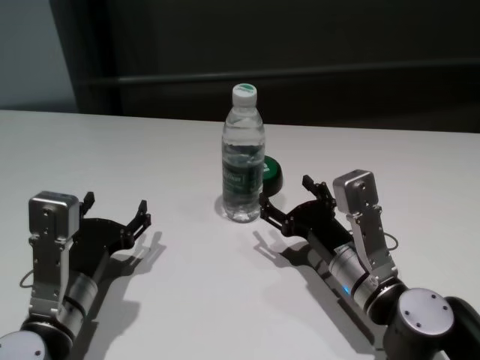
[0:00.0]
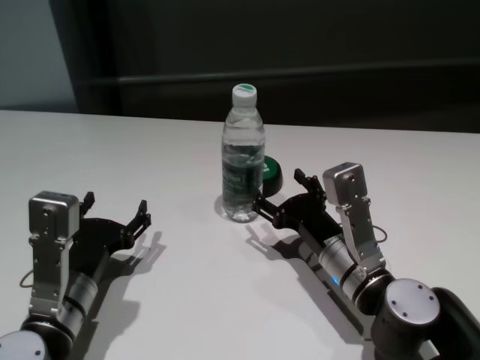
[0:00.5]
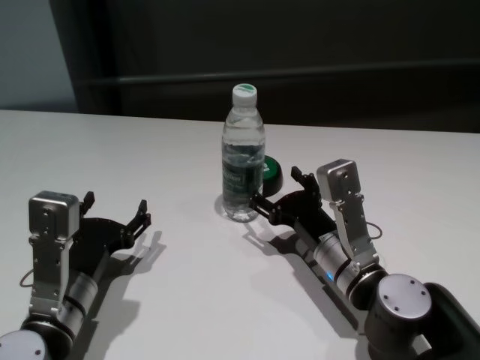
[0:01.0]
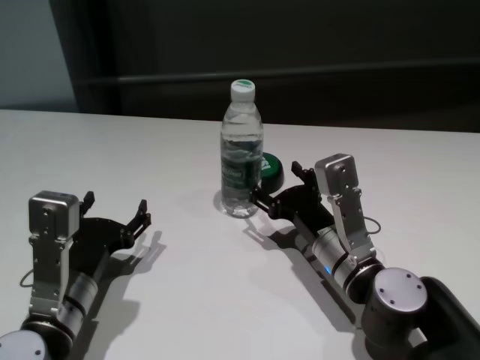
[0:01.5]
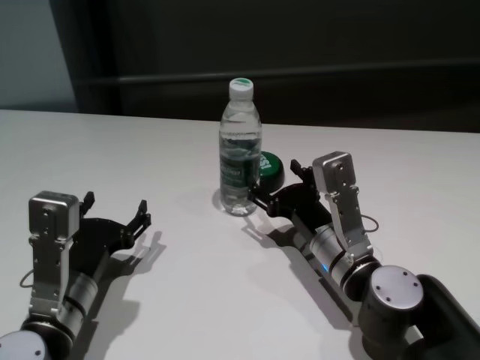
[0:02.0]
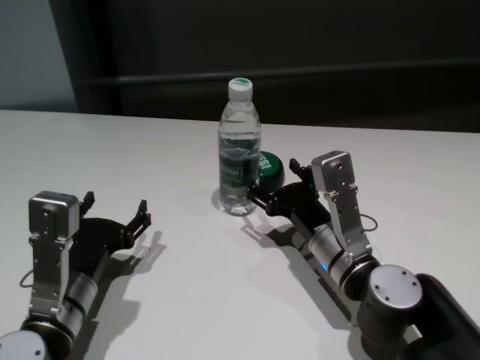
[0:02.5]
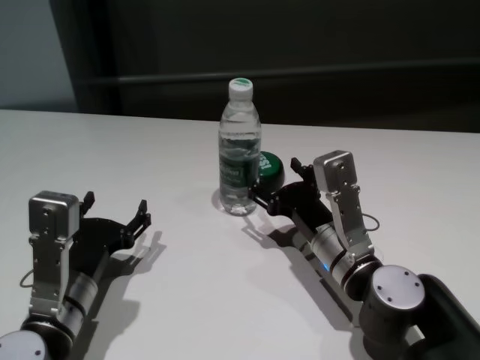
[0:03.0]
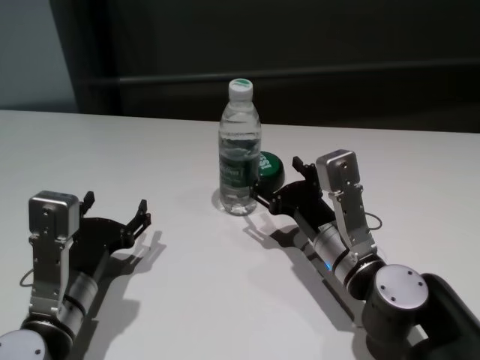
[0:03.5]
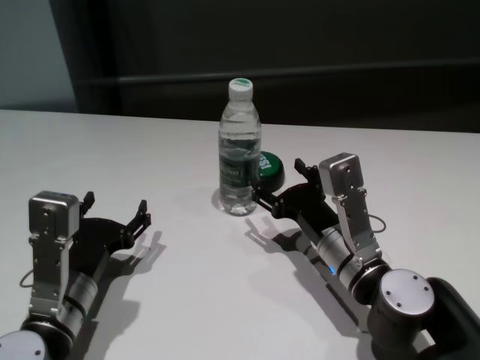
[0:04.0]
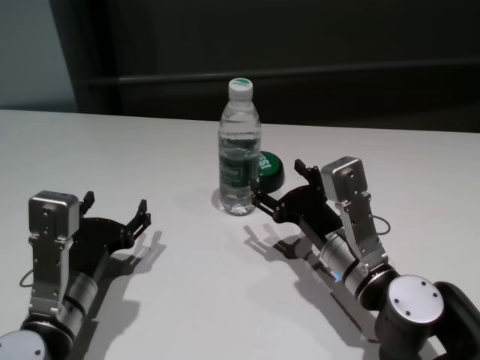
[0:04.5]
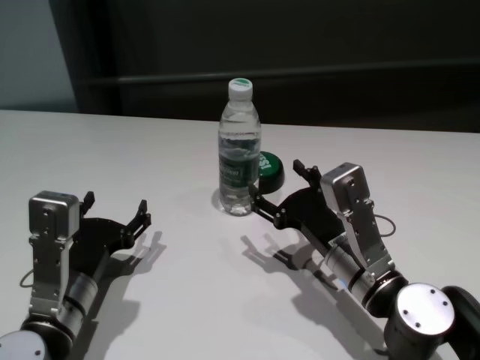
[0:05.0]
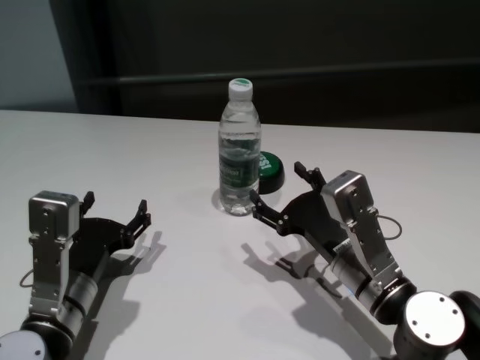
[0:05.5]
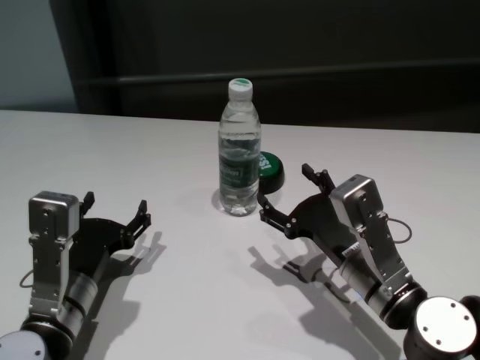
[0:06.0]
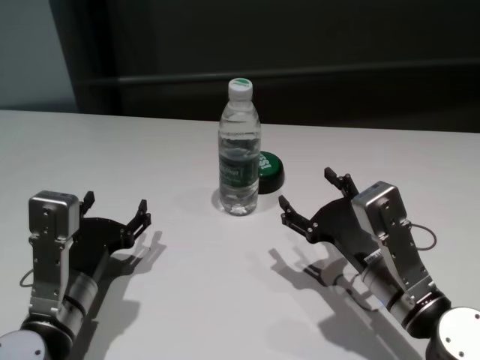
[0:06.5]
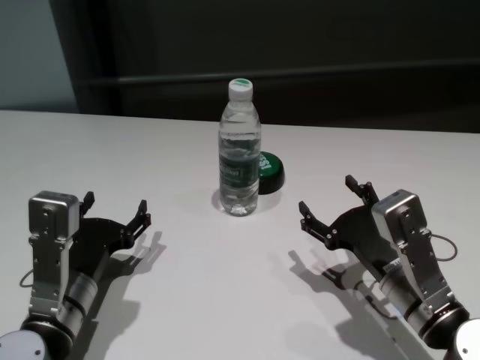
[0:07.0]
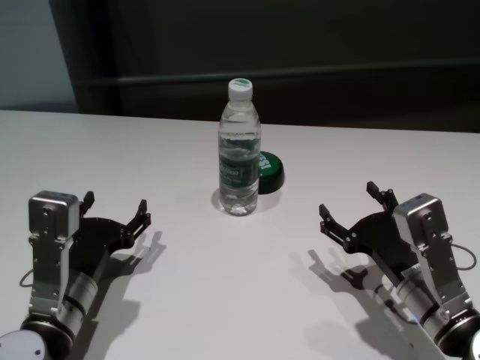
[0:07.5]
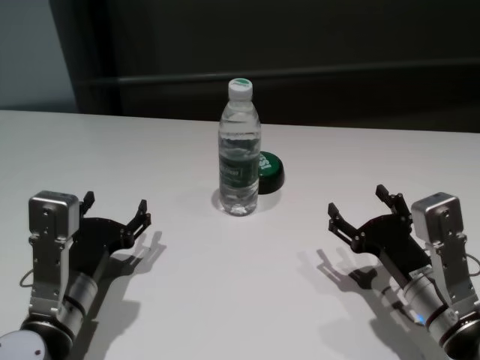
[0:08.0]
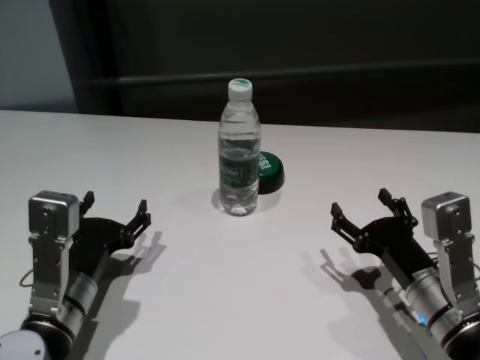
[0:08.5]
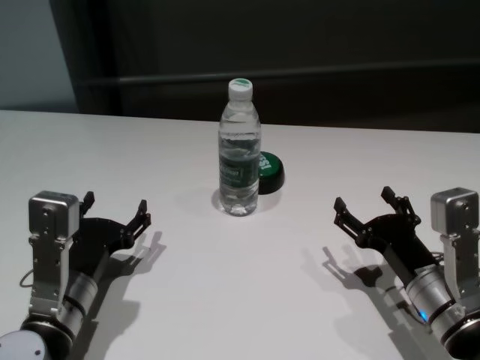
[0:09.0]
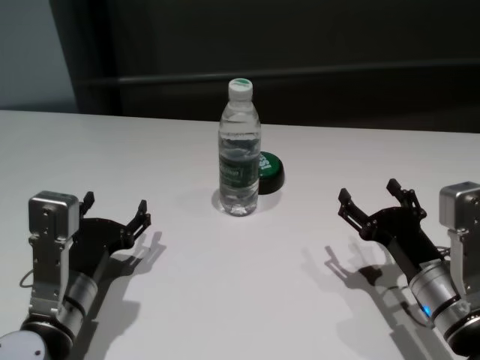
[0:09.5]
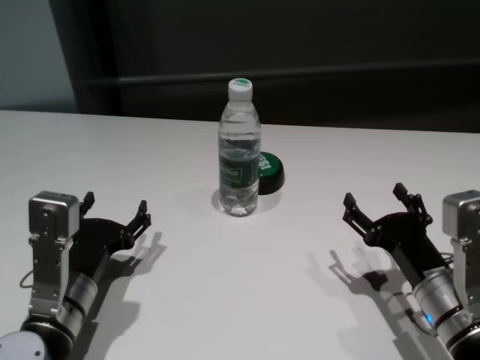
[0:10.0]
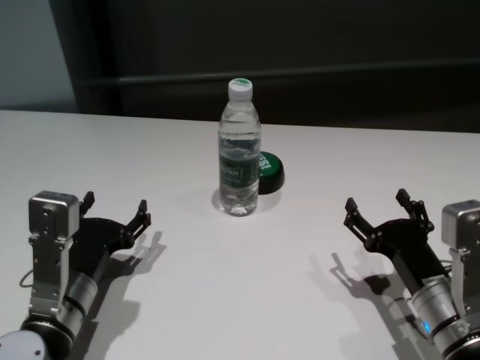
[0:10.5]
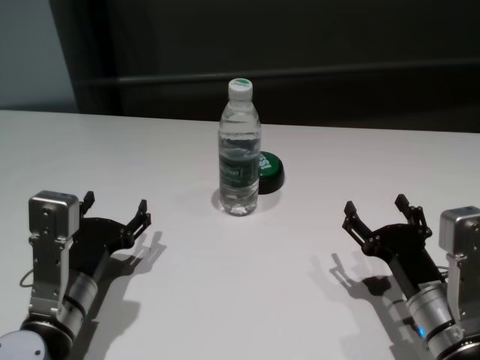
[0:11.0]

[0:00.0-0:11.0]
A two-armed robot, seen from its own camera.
Task of the whole recording: return to a safe position after touching an obstacle with your arm on the white table.
Step, 0:00.0 to 0:04.5: Touch the bottle with right gripper.

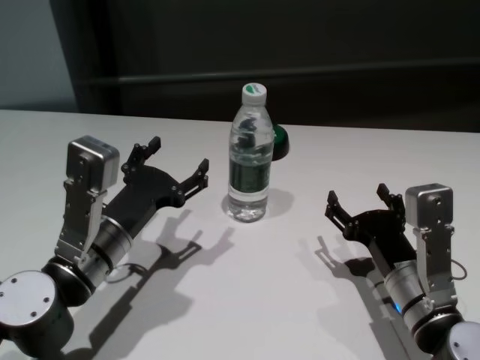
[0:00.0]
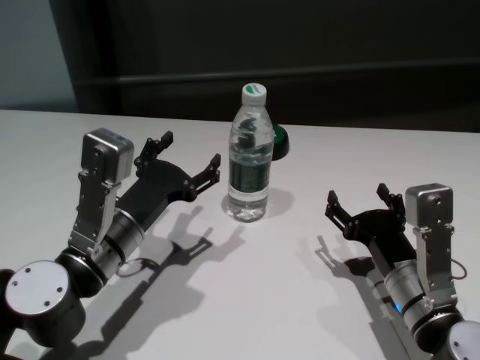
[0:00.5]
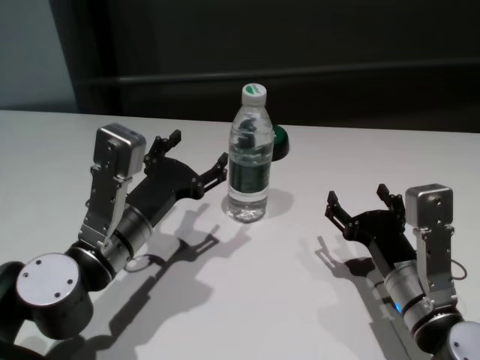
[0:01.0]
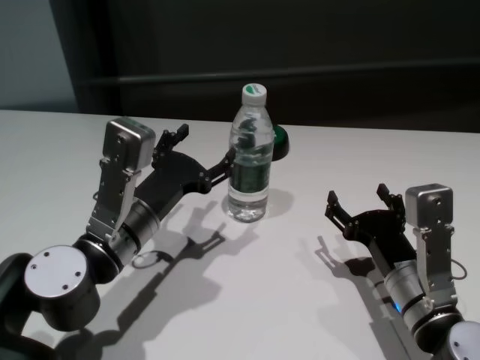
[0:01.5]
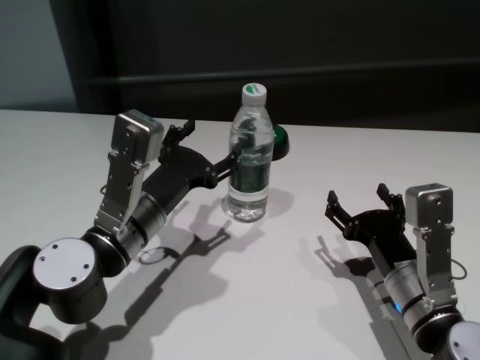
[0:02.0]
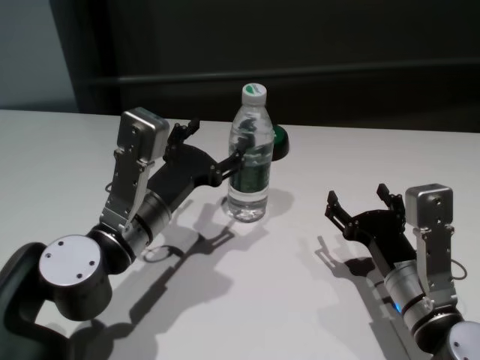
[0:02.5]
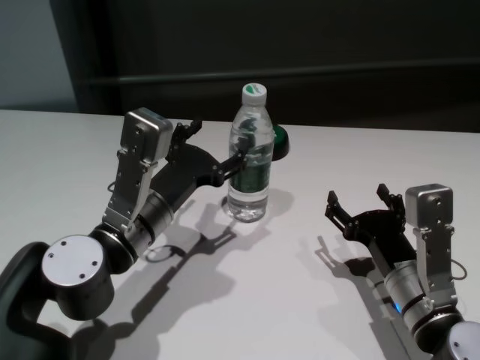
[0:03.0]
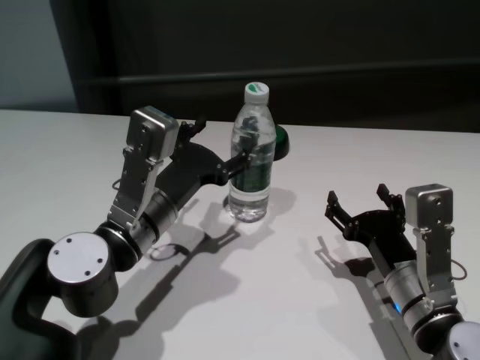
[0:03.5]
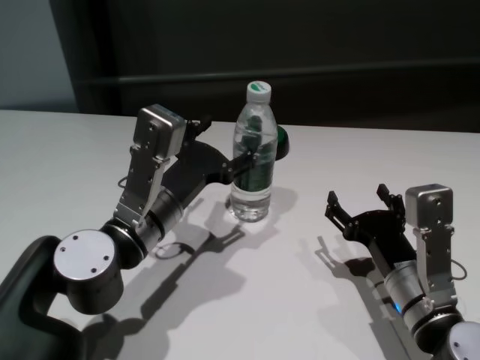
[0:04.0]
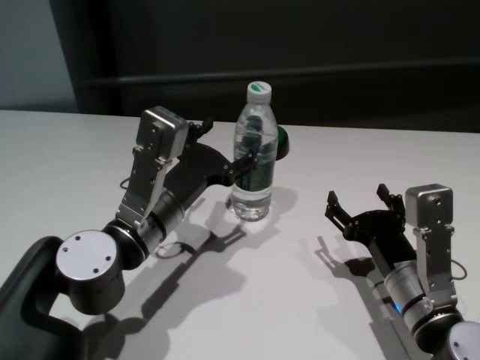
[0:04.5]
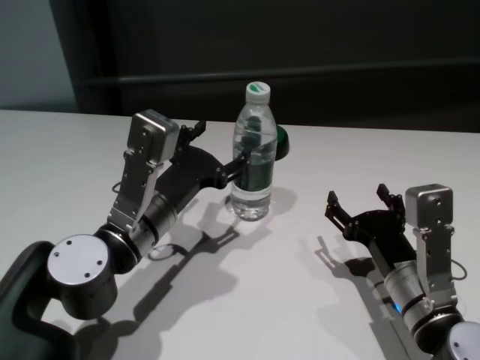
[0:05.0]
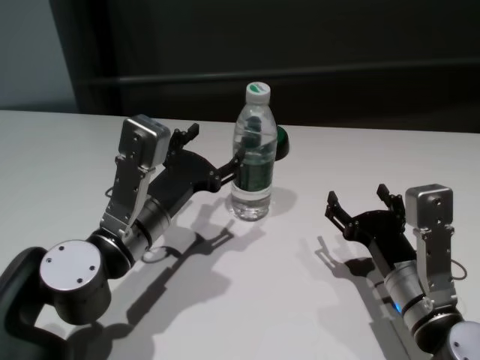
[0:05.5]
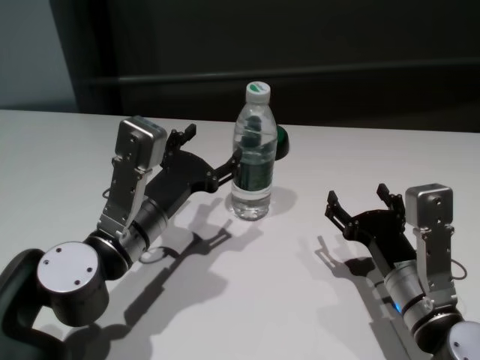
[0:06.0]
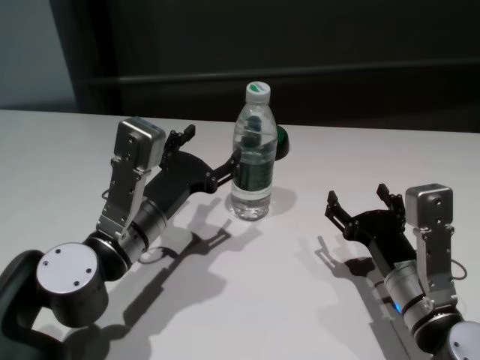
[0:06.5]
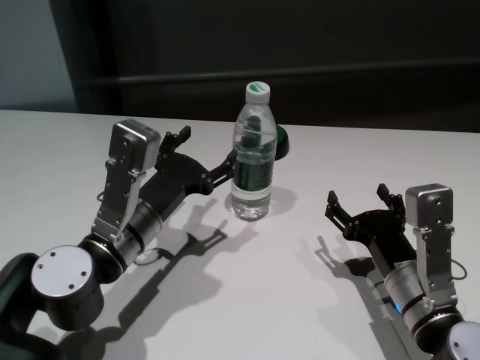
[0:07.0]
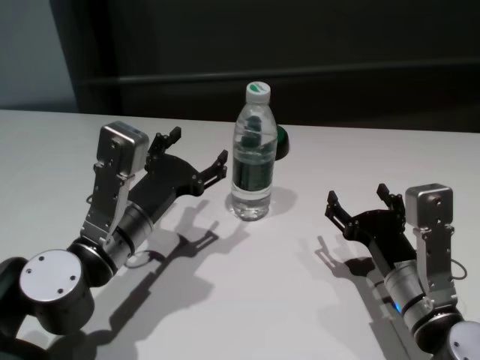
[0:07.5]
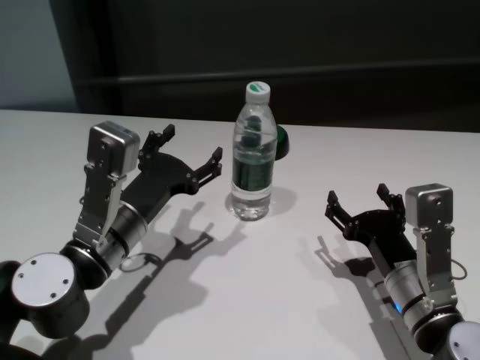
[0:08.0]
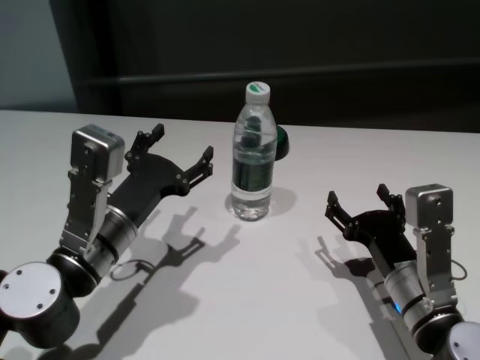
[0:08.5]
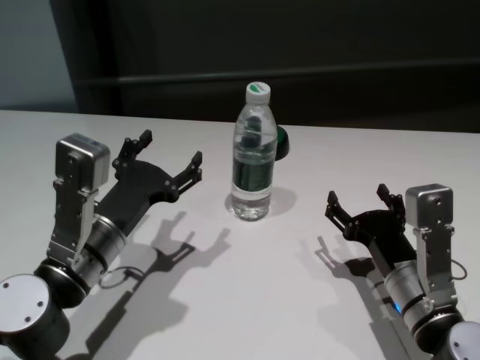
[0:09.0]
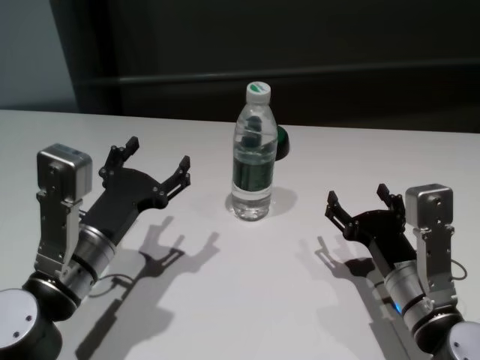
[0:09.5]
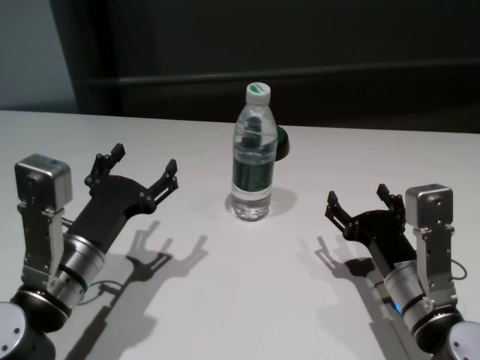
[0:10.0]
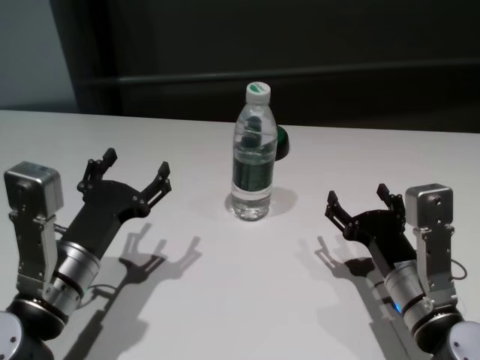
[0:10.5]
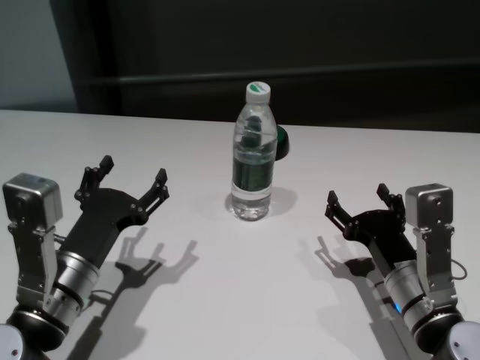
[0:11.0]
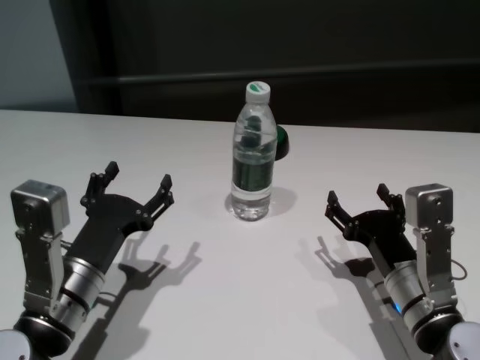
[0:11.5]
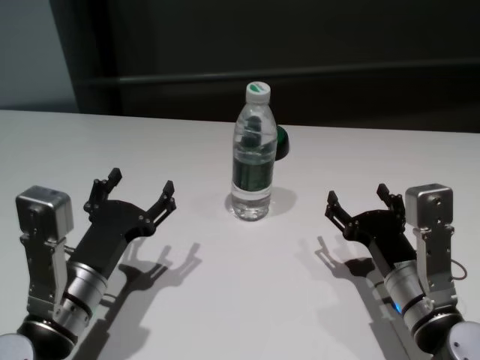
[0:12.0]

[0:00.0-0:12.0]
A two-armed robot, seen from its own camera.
Task of the whole recording: return to a safe position after touching an obstacle with your arm on the white table.
Step, 0:00.0 to 0:07.5: Touch the bottle with left gripper.

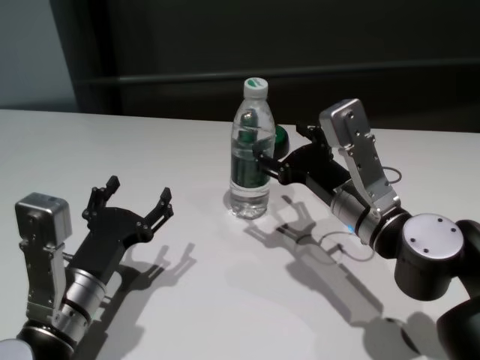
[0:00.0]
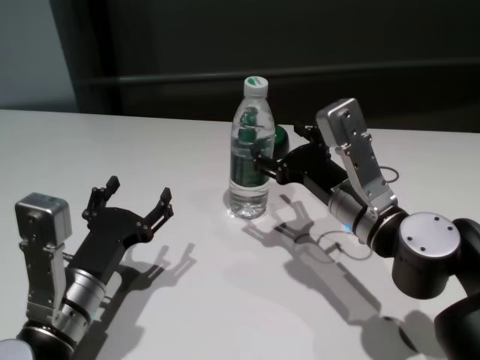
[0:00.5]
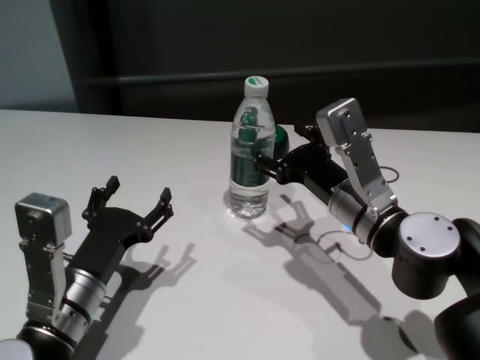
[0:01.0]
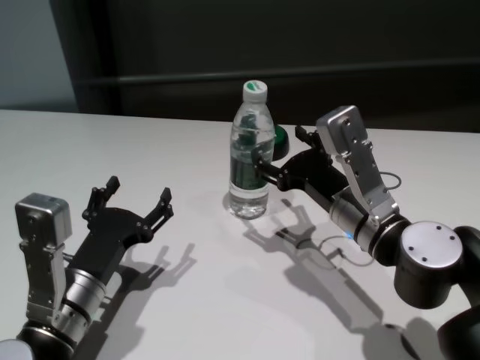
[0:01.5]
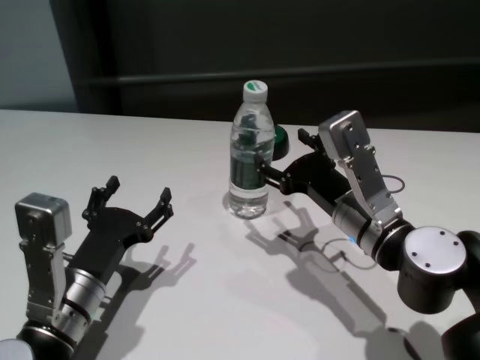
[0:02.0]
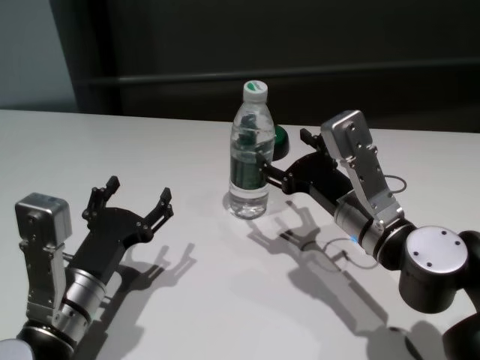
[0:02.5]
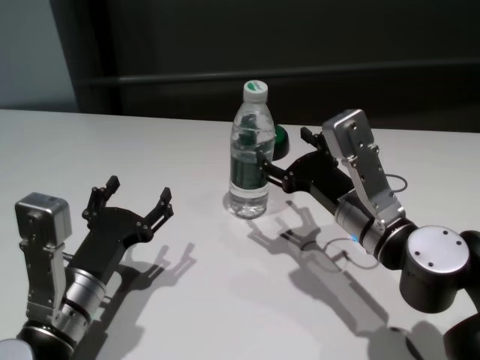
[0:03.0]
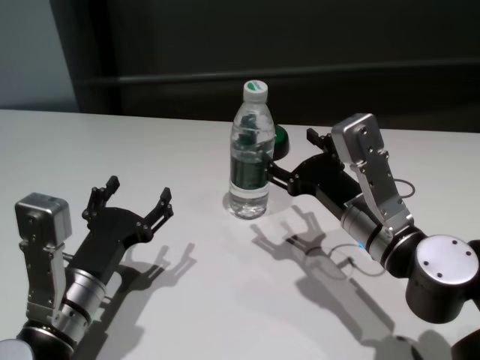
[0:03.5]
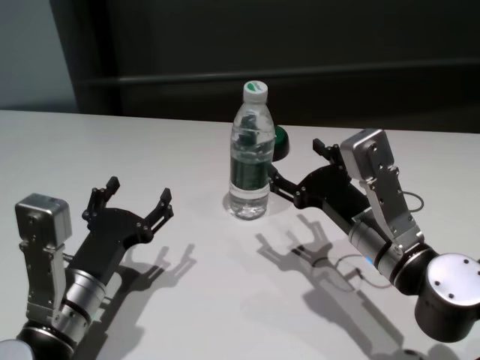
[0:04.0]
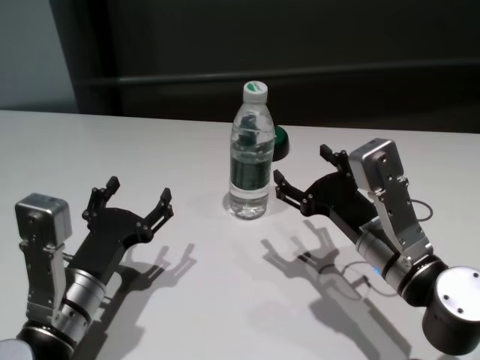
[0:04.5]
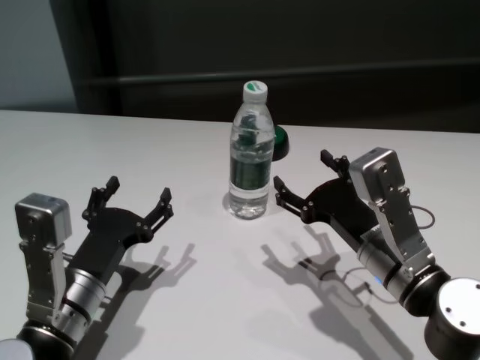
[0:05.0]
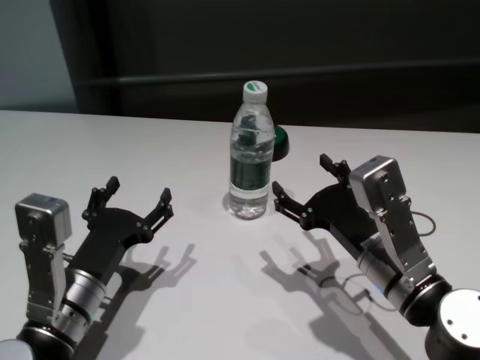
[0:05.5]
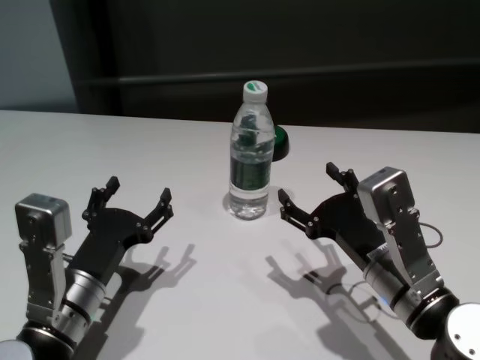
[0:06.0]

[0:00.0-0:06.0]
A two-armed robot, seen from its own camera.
Task of the whole recording: return to a safe position after touching an obstacle with your arm on the white table.
Step, 0:00.0 to 0:04.5: Touch the bottle with right gripper.
